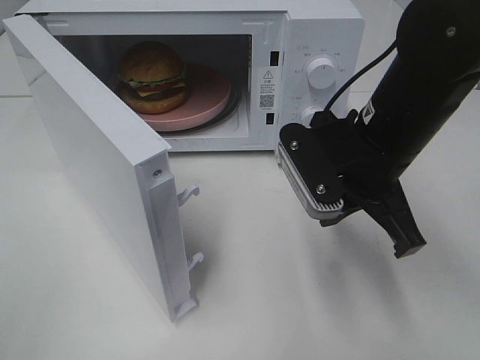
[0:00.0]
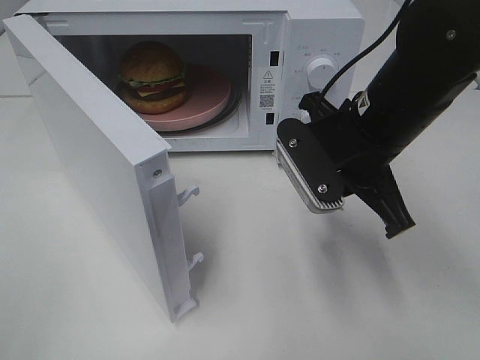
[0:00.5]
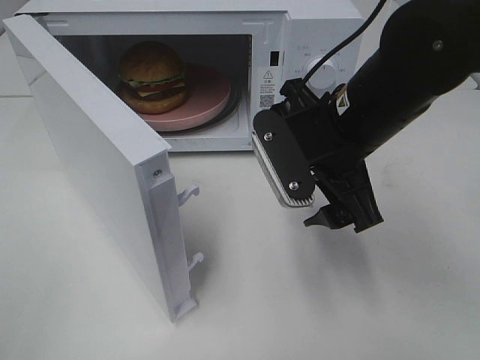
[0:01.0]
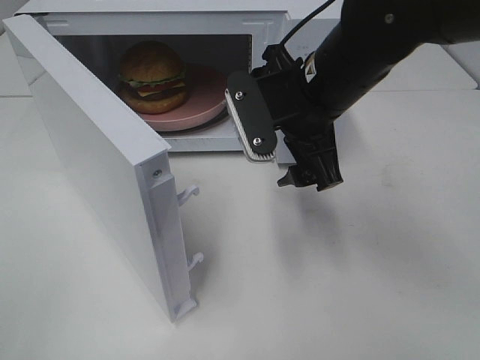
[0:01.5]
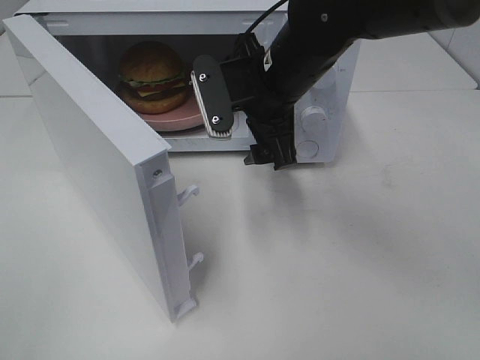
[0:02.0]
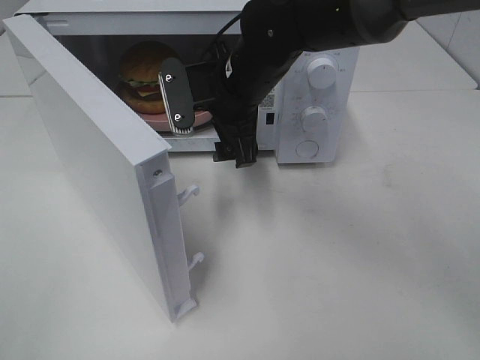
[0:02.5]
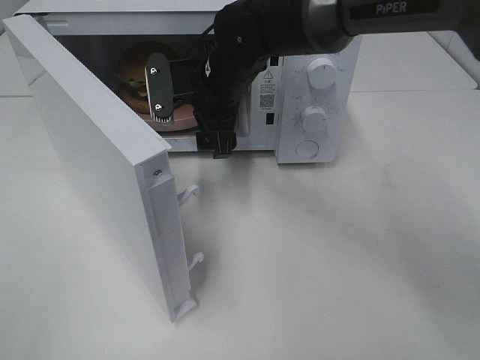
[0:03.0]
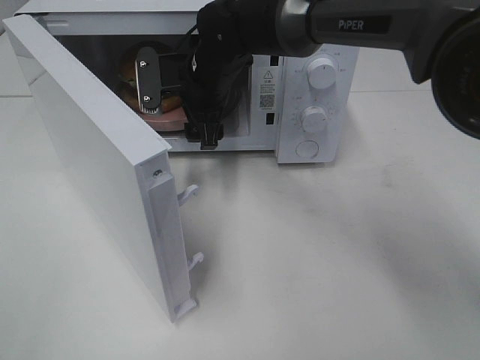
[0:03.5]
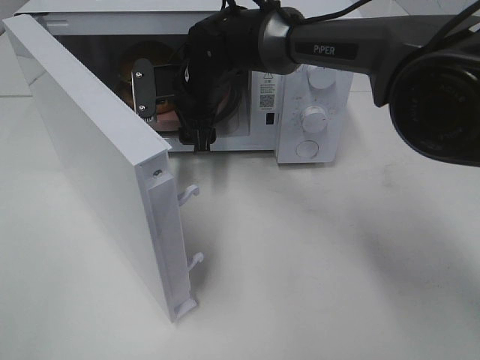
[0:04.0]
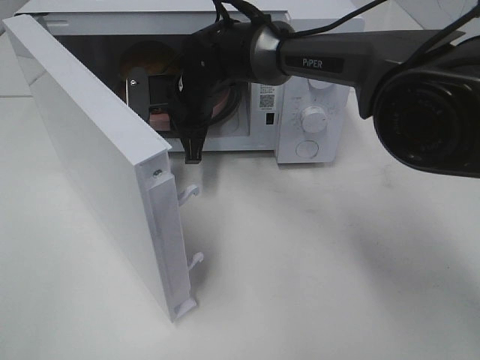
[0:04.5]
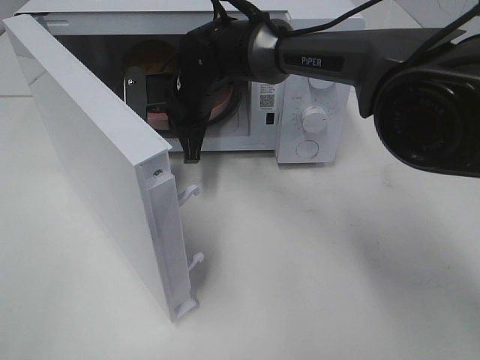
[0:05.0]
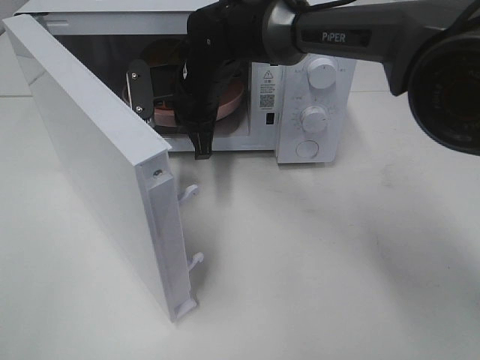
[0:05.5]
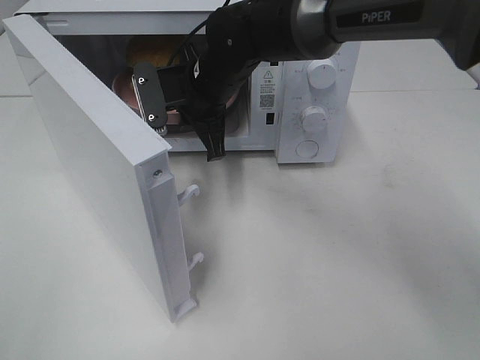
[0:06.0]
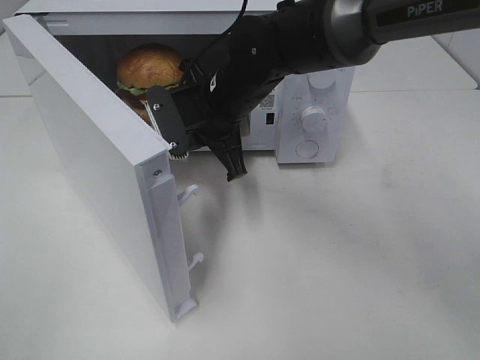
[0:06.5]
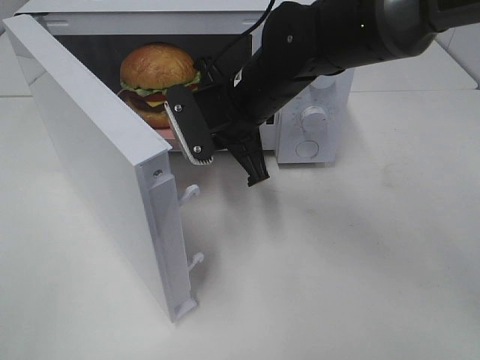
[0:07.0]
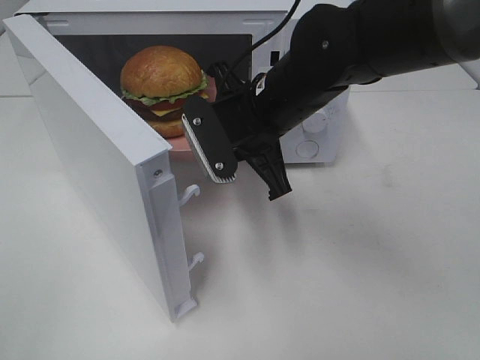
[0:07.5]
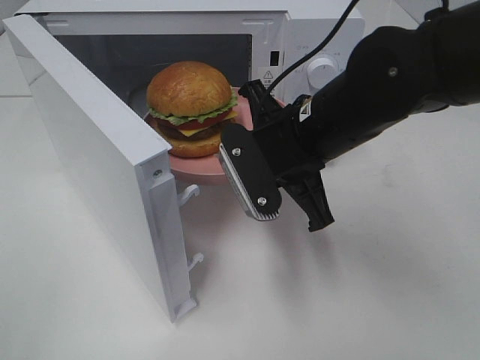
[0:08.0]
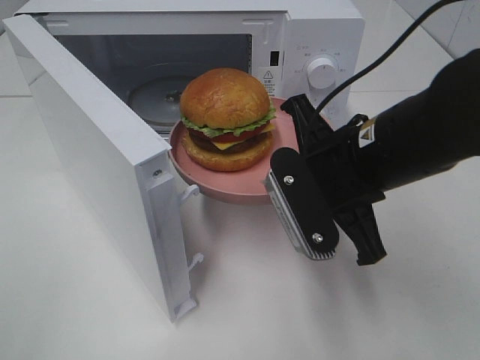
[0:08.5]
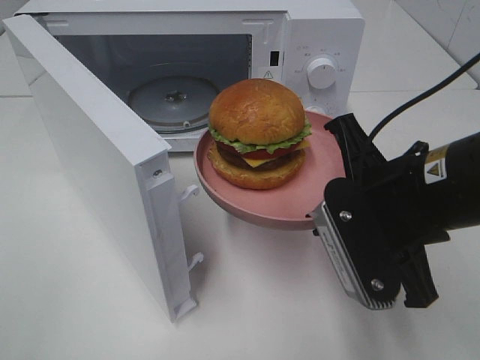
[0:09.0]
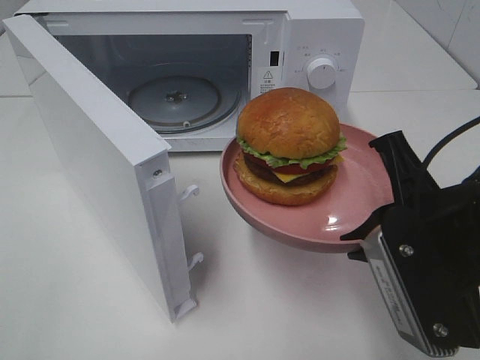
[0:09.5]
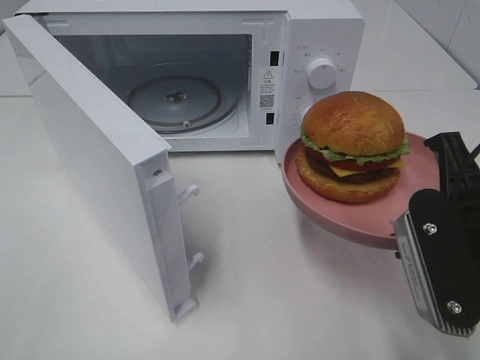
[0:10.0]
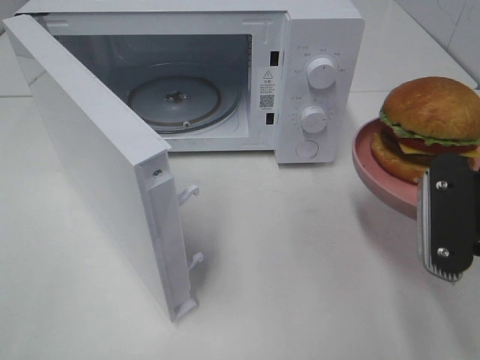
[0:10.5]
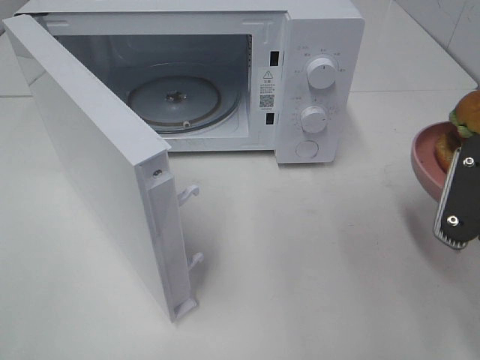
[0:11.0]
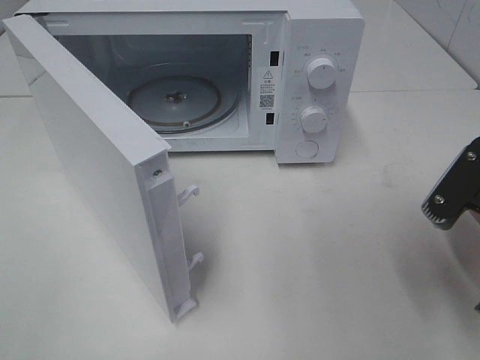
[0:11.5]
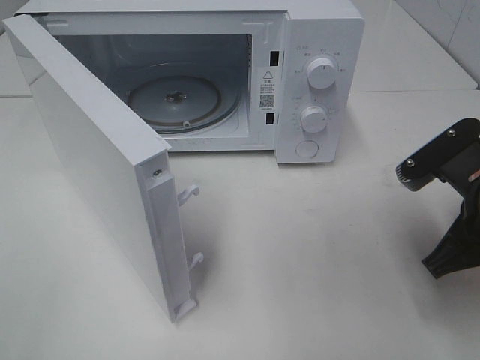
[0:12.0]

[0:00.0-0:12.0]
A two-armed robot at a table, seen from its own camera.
Task of the whole recording: Heat the burger.
Step, 0:00.0 to 0:04.5: Right hand: grab the plate with the hamburger.
0:00.0 to 0:02.0: The right gripper moves forward and to the left, roughly 10 cm, and opens.
0:02.0 to 0:04.0: The right gripper travels forward, to the left and downward by roughly 15 cm.
0:04.0 to 0:06.0: The right gripper moves approximately 5 cm, and closes its fingers.
0:06.0 to 0:08.0: The right gripper heads backward and to the right, covering about 15 cm.
0:08.0 to 0:10.0: The right gripper travels backward and to the right by about 15 cm.
0:10.0 to 0:12.0: The right gripper shifts by approximately 5 cm.

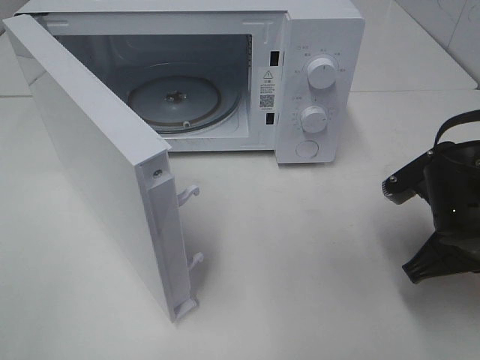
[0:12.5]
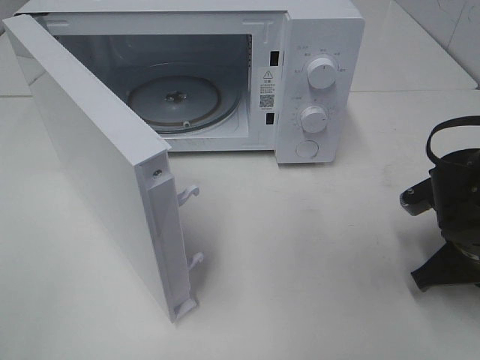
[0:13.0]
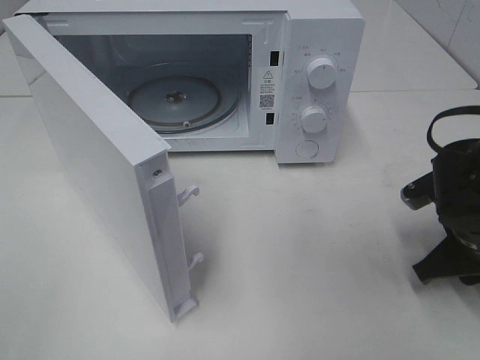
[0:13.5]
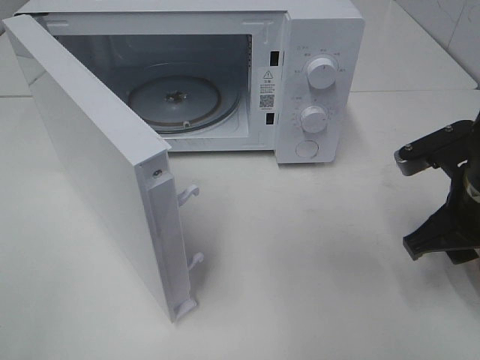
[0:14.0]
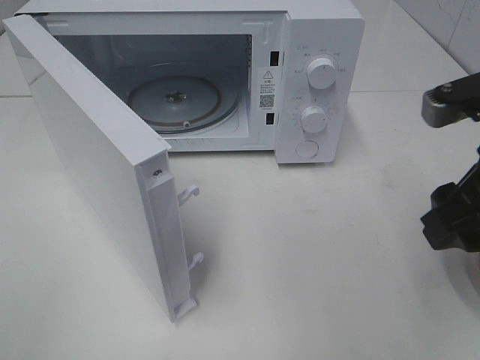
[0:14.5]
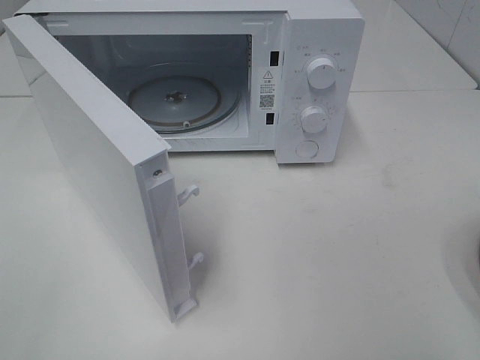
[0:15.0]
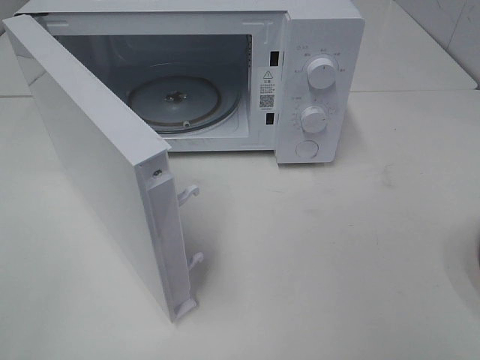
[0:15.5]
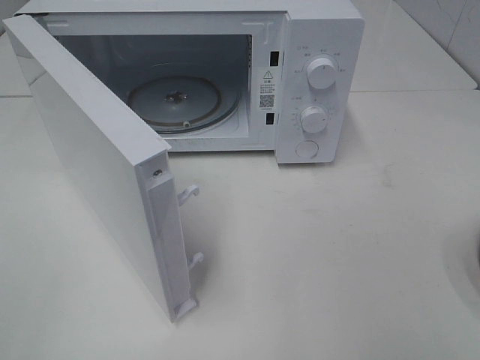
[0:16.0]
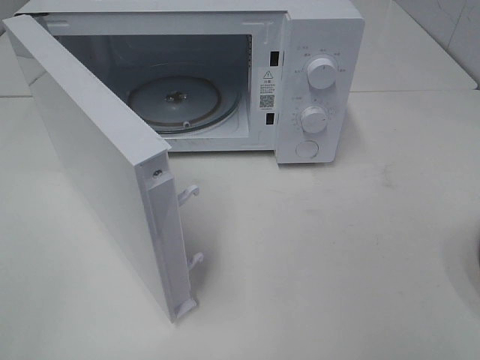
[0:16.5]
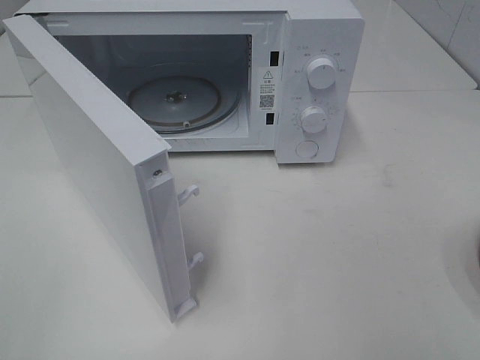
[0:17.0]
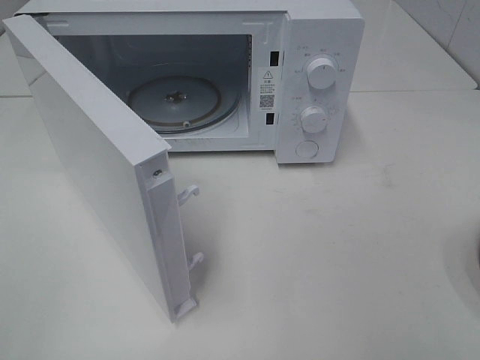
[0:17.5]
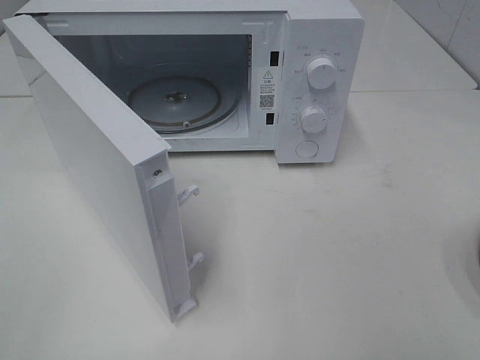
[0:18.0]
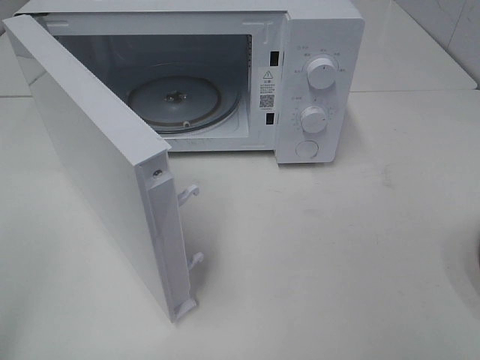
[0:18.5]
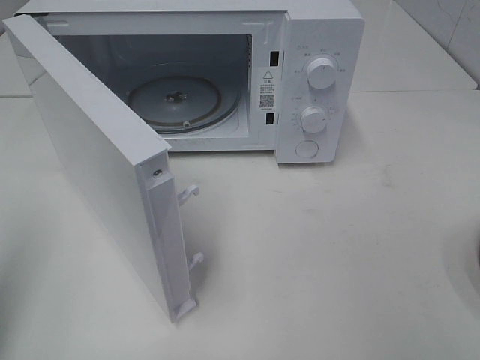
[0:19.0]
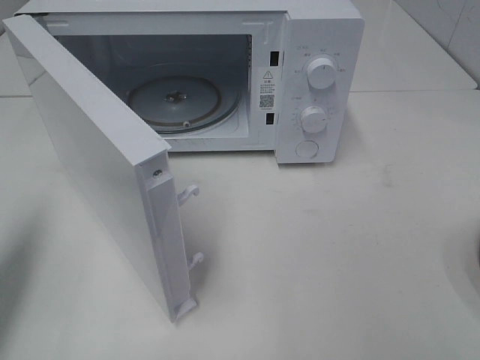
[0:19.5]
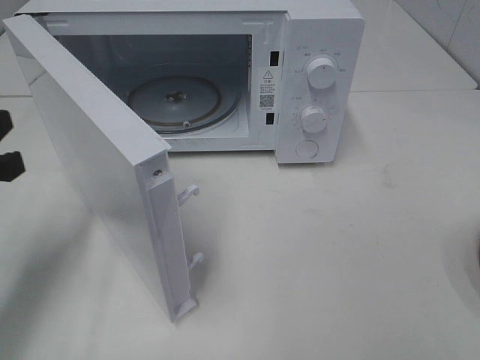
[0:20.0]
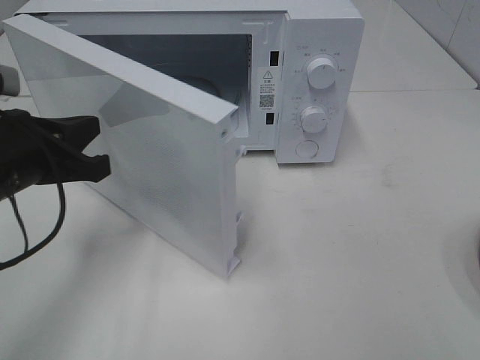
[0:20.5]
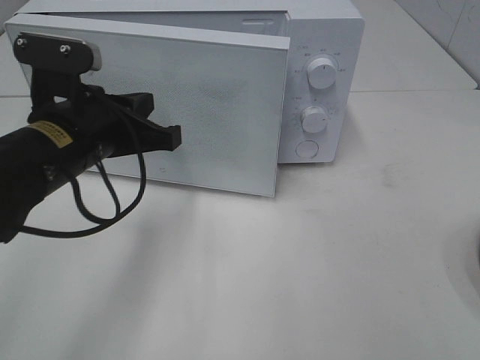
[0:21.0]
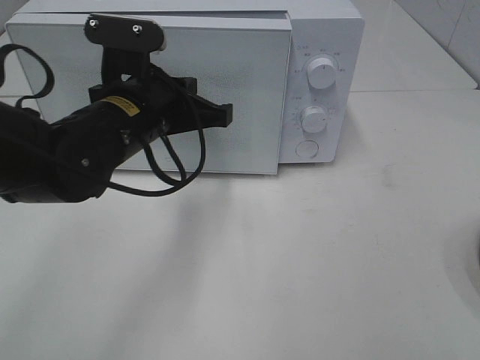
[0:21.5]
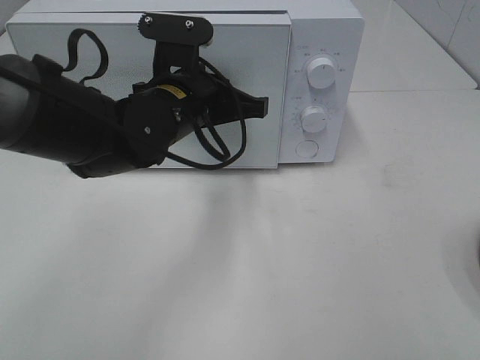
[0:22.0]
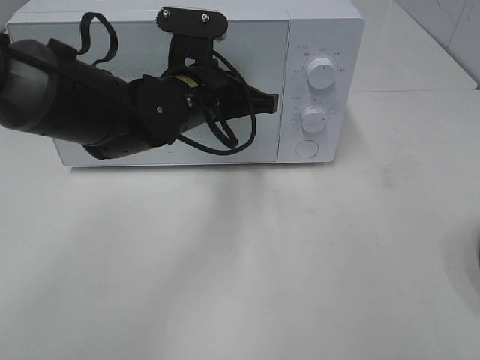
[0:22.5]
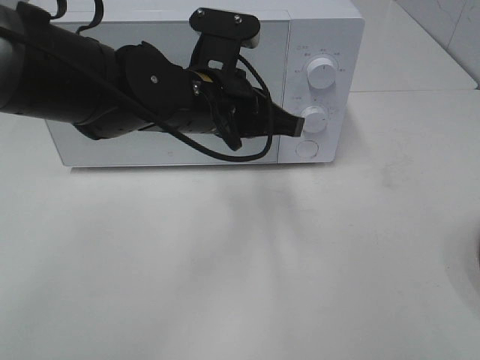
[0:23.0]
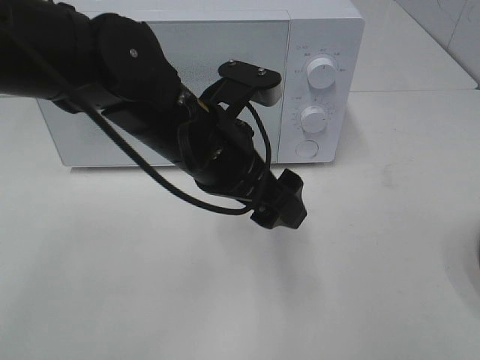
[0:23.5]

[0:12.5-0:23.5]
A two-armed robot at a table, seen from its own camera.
Task of the whole recording: Heat the burger.
Step, 0:14.0 to 0:23.0: Left hand: close the microwave door.
0:12.5 to 0:14.5: The right gripper goes about 10 cm upward, and opens up.
0:14.5 to 0:16.0: The right gripper is displaced backward and to the right by approximately 20 cm.
0:18.0 to 0:20.0: The left gripper shifts some 25 cm forward and downward, and closes its fingers.
0:20.0 to 0:21.5: The left gripper moves to the right and forward, about 20 cm.
0:21.5 to 0:23.5: The left gripper shifts some 5 cm to the right, and opens.

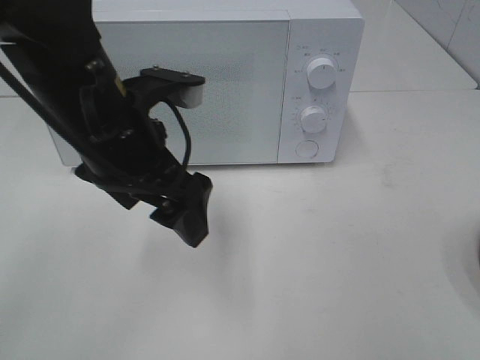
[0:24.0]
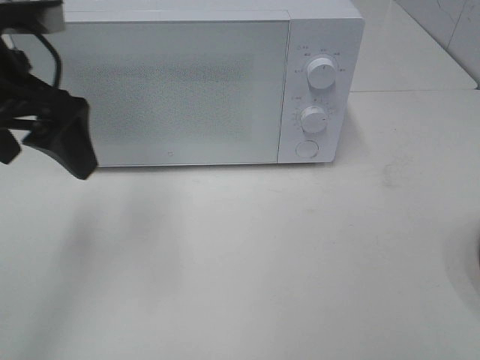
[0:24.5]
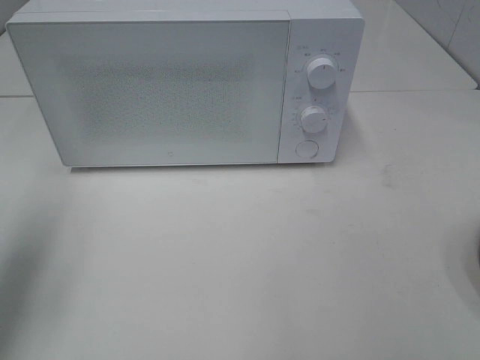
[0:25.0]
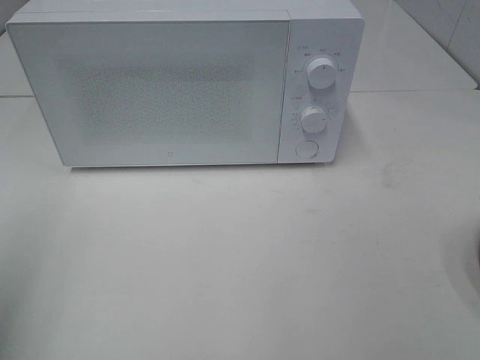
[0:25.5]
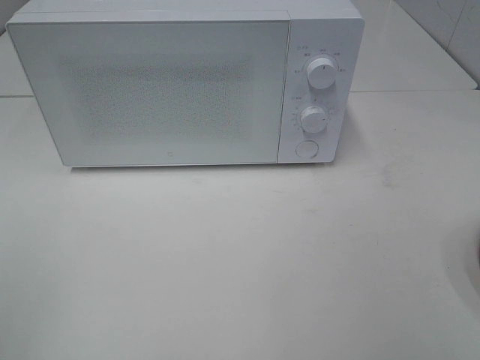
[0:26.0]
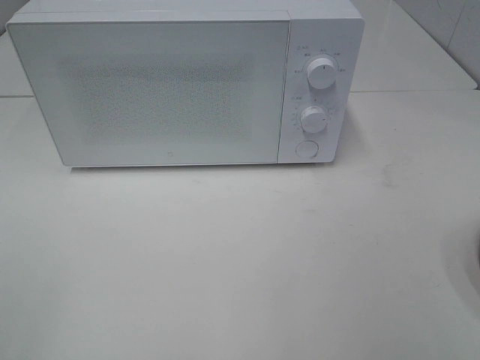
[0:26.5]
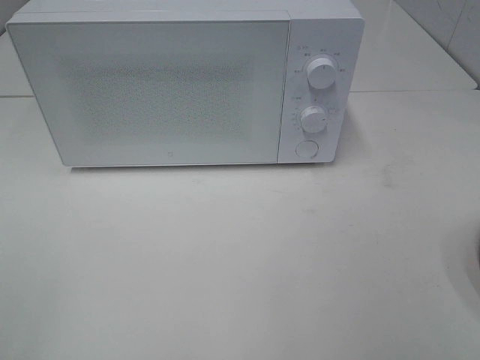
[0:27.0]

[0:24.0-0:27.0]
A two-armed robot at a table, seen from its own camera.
Task of the whole recording: Heat the burger.
0:24.0 to 0:25.5: The left gripper travels to the left and backward by approximately 25 cm.
